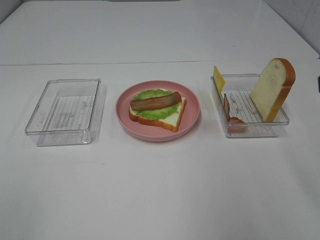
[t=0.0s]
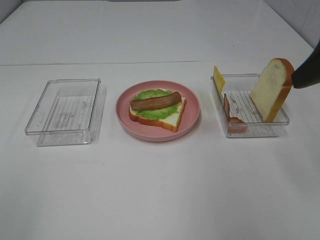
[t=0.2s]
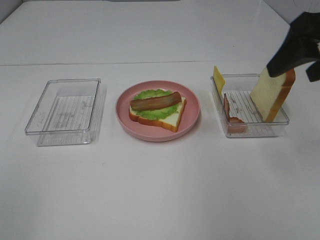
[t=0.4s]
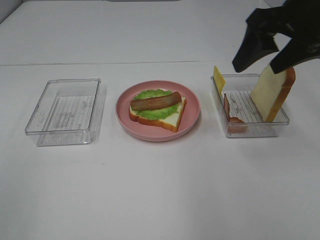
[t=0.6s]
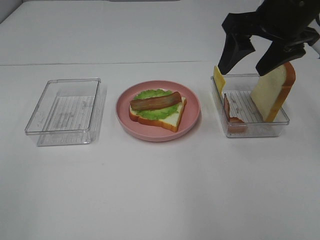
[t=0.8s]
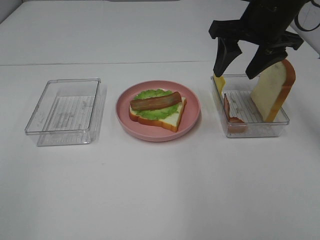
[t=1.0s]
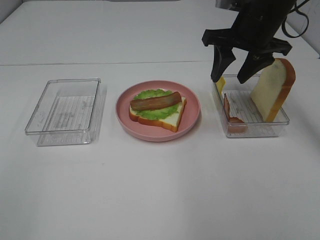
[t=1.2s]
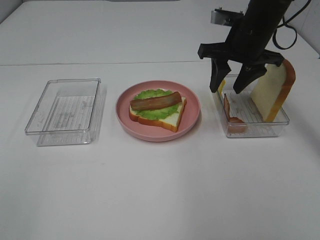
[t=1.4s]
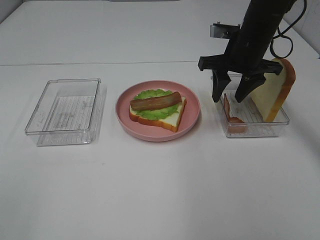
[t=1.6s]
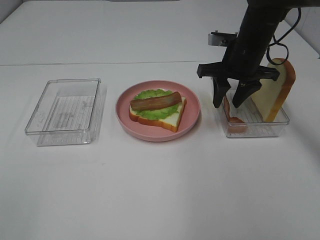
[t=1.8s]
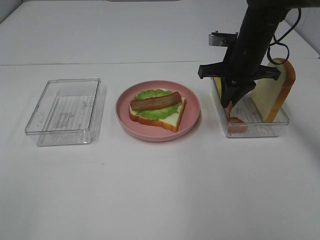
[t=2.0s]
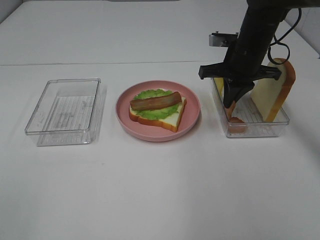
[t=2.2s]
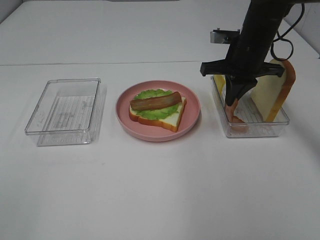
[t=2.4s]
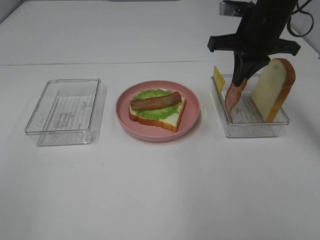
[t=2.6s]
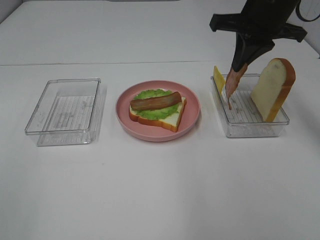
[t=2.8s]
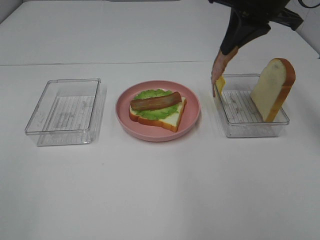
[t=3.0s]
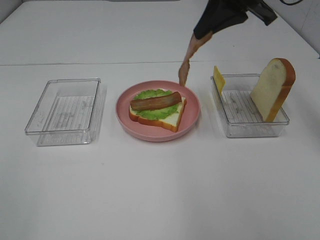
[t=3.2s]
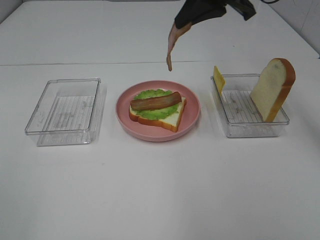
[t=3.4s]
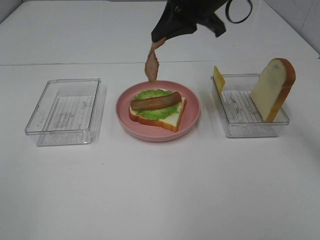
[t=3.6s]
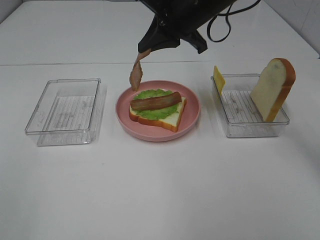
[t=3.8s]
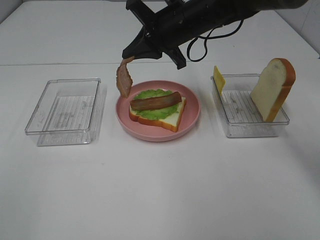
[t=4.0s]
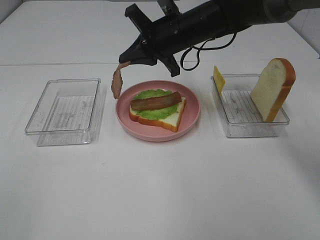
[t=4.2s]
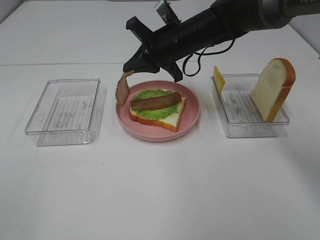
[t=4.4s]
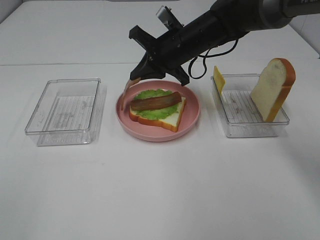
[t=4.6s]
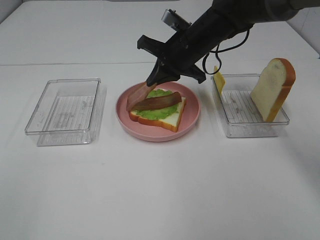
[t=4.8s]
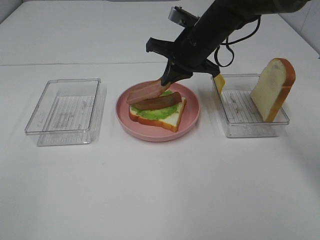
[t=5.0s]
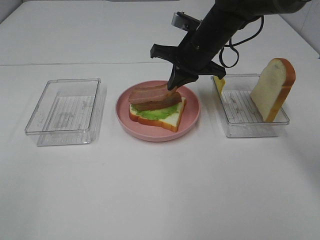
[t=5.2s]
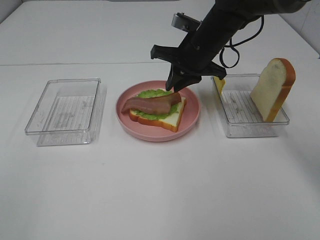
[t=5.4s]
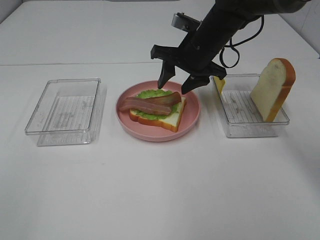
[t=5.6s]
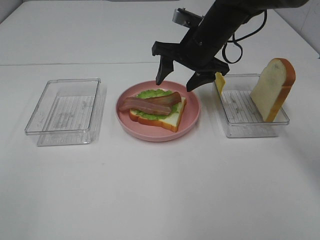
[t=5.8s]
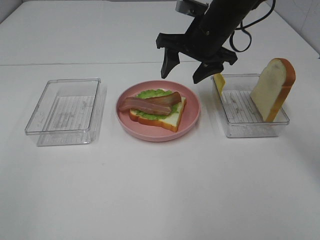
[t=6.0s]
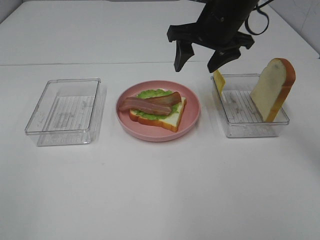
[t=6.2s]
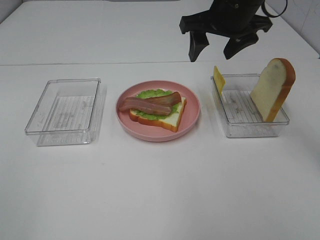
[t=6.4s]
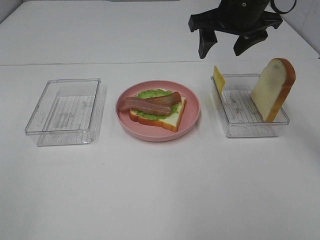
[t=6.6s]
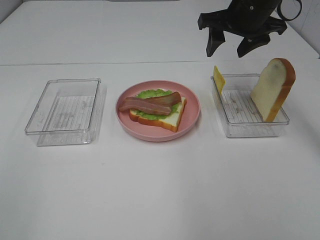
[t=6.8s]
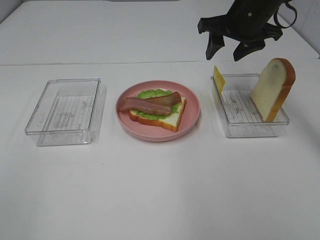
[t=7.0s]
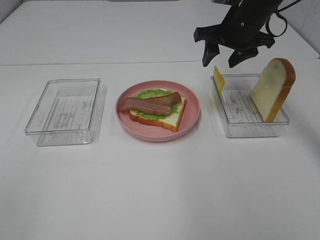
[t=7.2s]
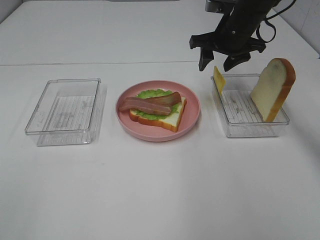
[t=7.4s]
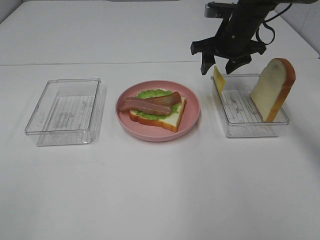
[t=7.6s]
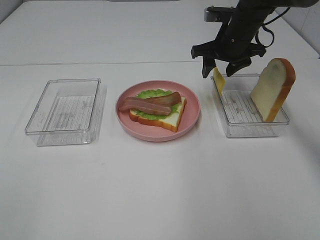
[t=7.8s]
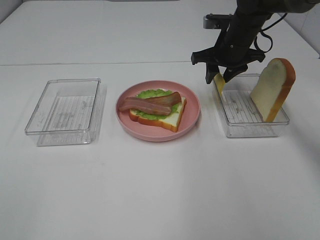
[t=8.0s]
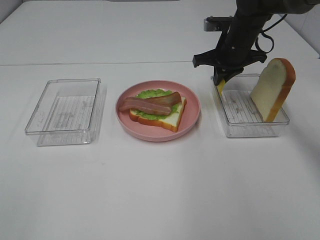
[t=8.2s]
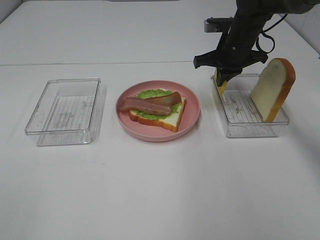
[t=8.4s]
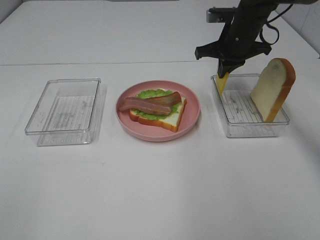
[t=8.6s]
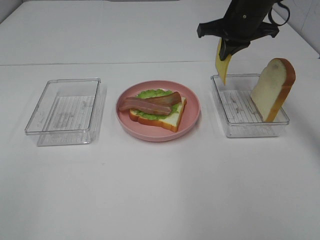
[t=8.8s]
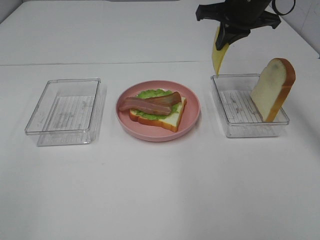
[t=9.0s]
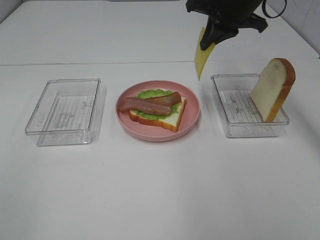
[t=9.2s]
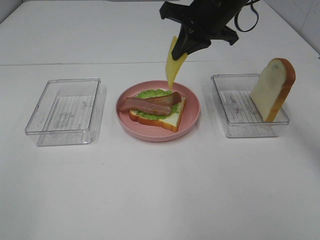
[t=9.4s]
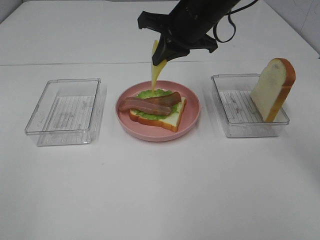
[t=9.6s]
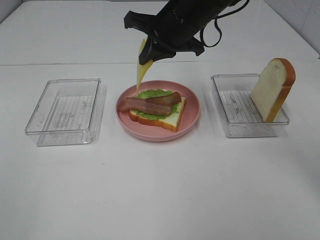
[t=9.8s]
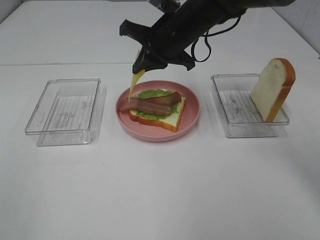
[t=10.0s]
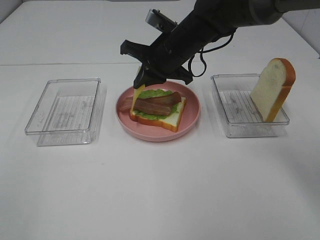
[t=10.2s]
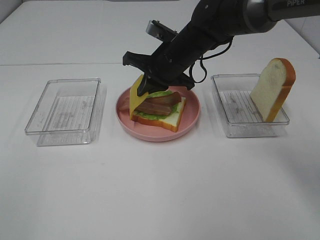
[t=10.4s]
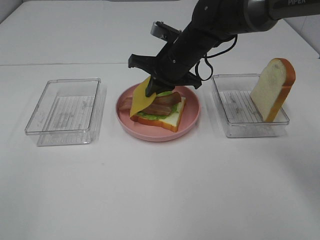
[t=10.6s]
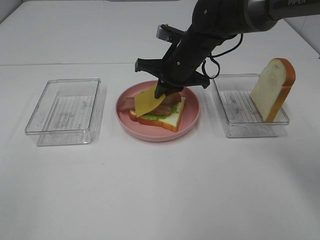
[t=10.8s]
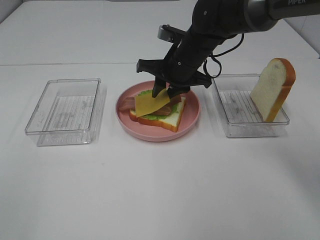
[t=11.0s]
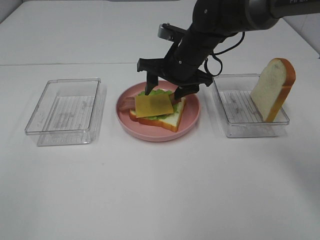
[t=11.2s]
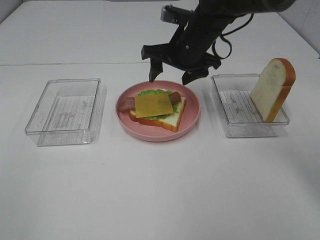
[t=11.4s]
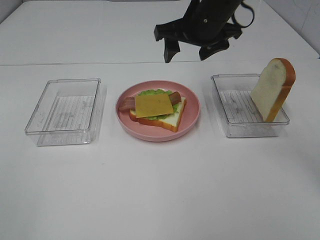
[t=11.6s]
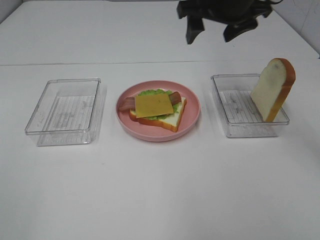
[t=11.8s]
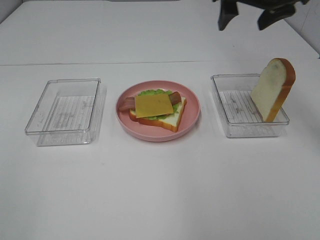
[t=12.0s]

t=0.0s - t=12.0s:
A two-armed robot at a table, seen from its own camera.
Task of the whole recording: Make sandwiches.
Step, t=0.0s - t=2.2s: Right hand:grab the bacon.
Step, t=2.4s - t=6.0s: Right hand:place bacon on bacon.
Step, t=6.2s - t=8.2s: Right hand:grab the cheese slice.
Step, t=8.4s - t=11.2s: Right hand:place the cheese slice on top of the bacon.
t=0.0s - t=1.6s: The right gripper travels forward, downward and to the left by approximately 30 cm.
t=1.6s - t=3.0s: The right gripper travels upward by about 15 cm, and closes up.
t=3.0s - t=4.4s: The right gripper heads downward, to the left and forward, covering roughly 20 cm.
t=4.4s - t=6.0s: The right gripper ends up about 5 cm from where it was, and opens up.
t=6.0s - t=7.6s: The right gripper moves to the right and forward, about 10 cm.
t=7.6s - t=9.0s: The right gripper moves upward, approximately 10 cm, and closes up.
t=9.0s - t=10.4s: The right gripper goes approximately 15 cm to the left and downward.
t=10.4s - t=12.0s: The right gripper shifts approximately 20 cm upward and to the right, and opens.

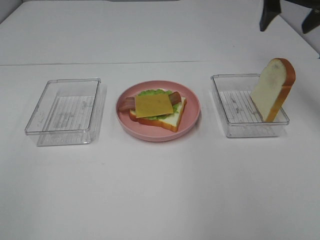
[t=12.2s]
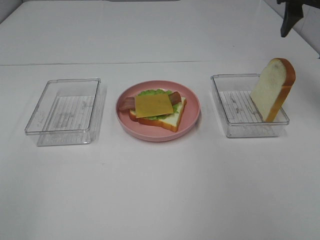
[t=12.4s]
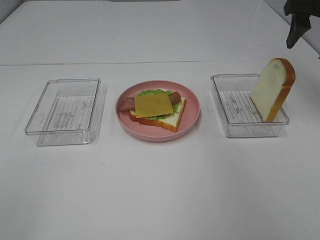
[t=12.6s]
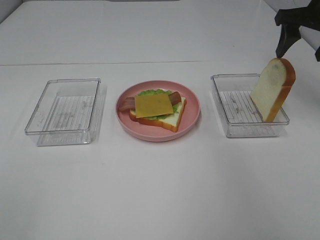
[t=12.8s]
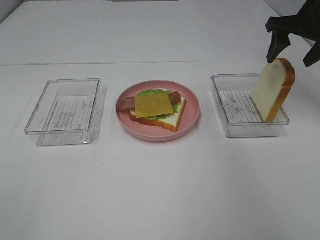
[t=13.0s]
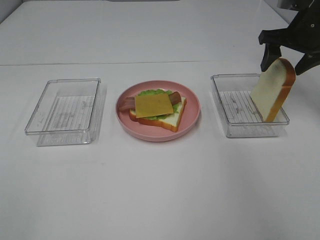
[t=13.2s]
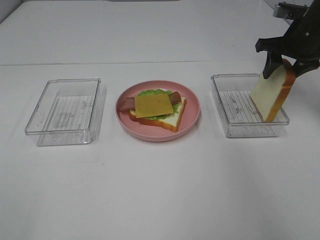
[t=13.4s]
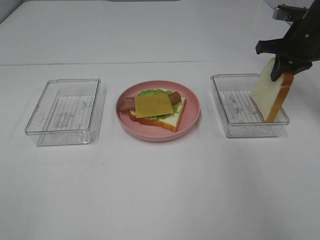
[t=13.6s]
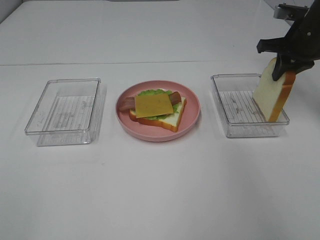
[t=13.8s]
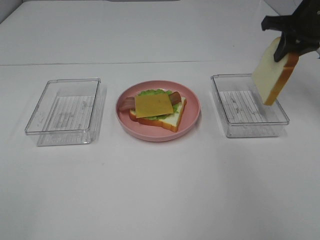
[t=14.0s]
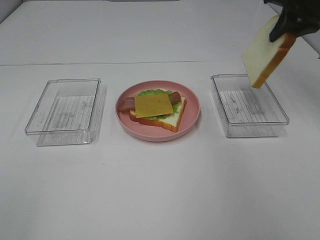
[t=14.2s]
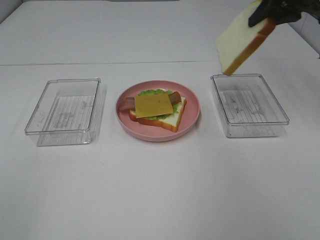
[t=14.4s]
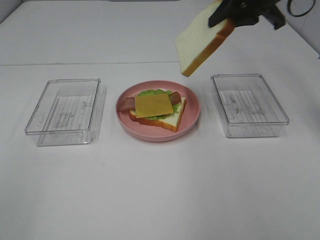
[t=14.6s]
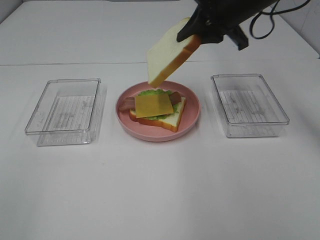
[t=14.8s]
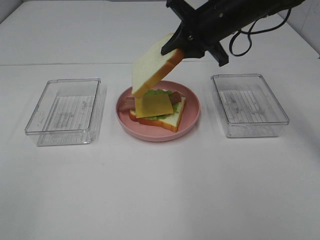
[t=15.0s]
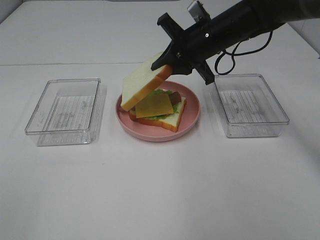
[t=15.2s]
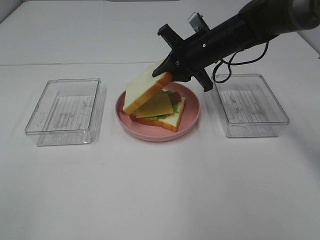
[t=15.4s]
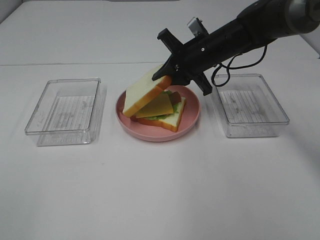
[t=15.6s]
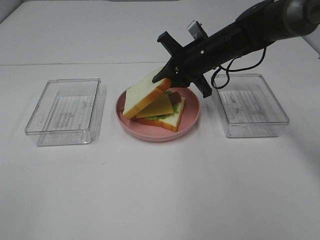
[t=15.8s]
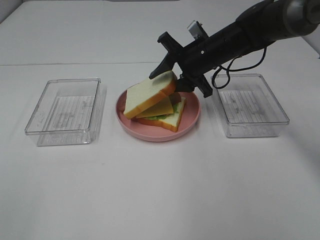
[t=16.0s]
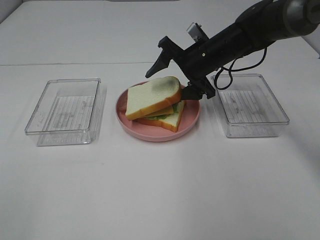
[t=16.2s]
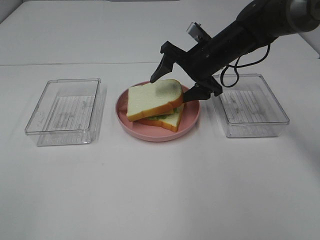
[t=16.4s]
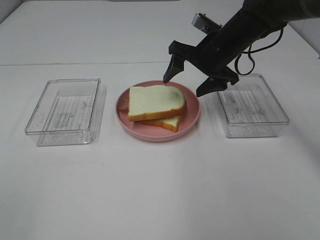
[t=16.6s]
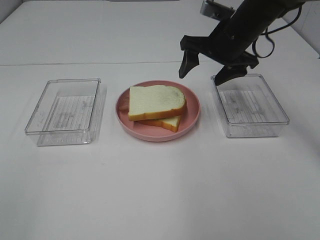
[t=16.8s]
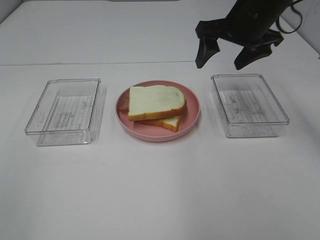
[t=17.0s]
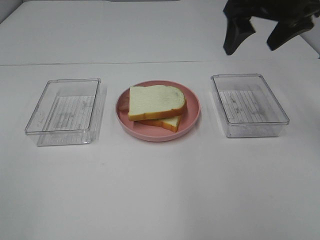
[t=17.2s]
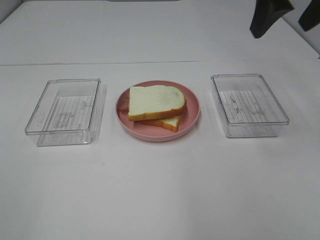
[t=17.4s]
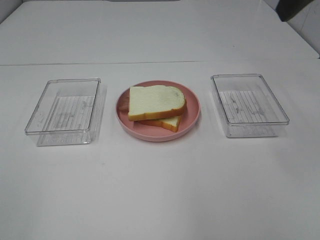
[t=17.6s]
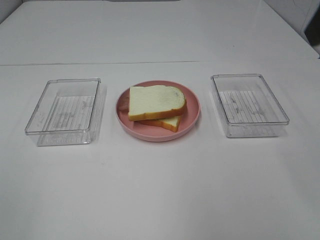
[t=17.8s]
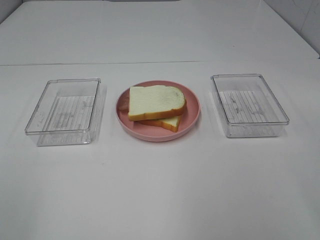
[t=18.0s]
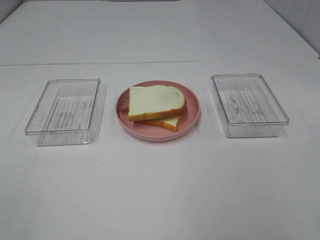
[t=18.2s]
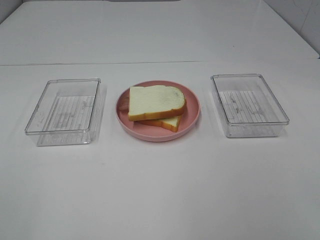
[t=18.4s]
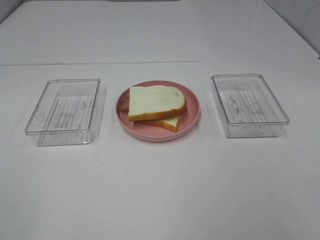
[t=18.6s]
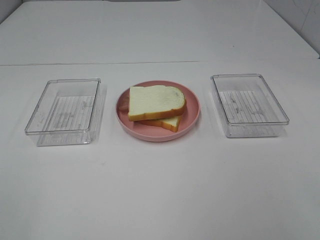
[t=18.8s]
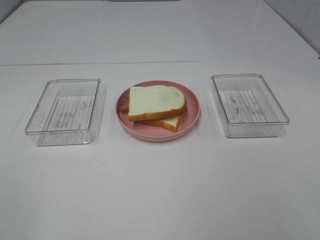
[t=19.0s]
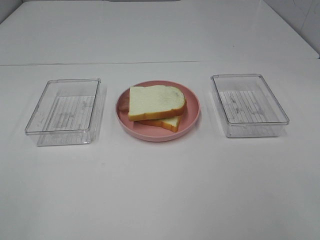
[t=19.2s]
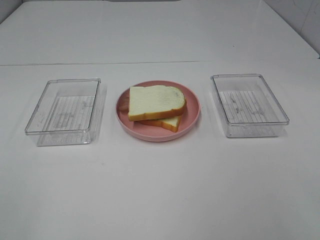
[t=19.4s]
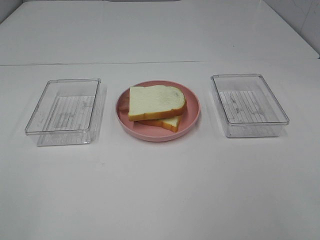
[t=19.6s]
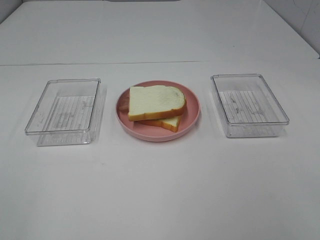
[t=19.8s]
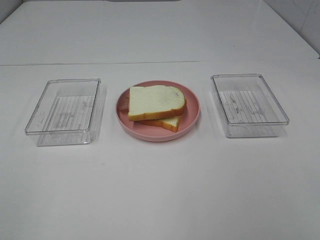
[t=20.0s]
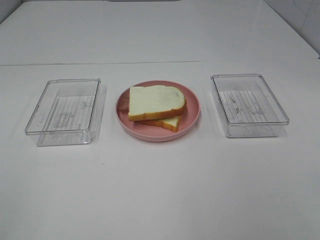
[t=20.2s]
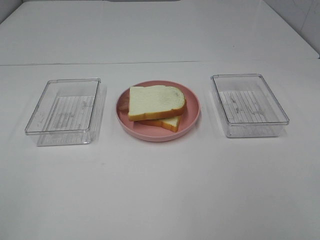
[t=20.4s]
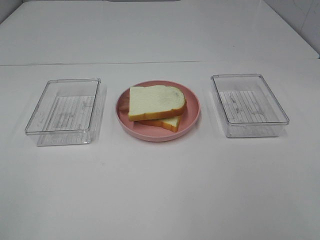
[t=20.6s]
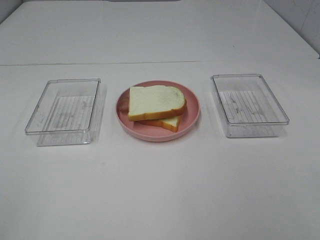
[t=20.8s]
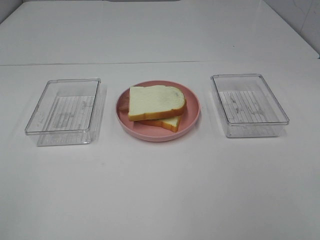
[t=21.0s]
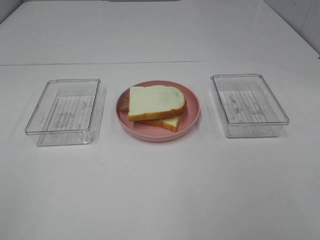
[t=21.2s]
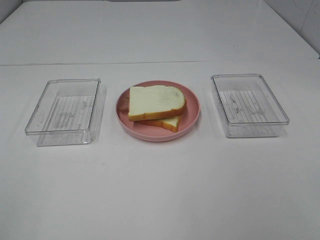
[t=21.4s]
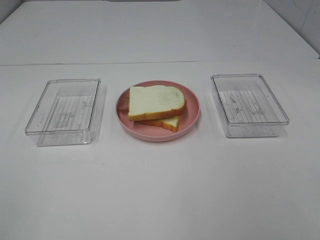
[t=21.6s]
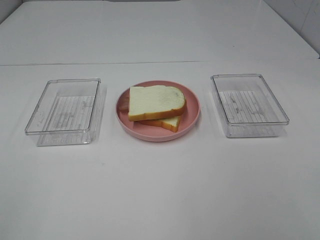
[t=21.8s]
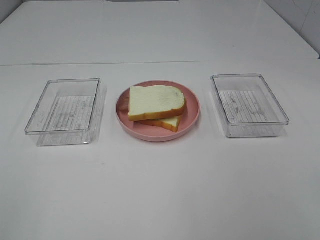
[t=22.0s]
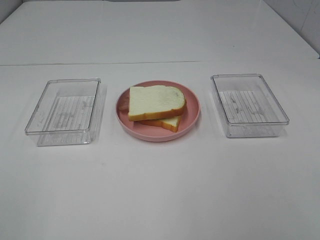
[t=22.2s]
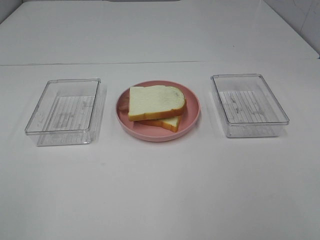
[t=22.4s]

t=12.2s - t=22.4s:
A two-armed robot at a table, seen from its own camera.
Task of the whole recording: Make sandwiches.
Step, t=12.2s - t=13.8s: Right hand:grab the bread slice.
Step, t=14.0s - t=16.8s: Right hand:place the bread slice on the cheese slice.
t=12.2s - t=13.6s: The right gripper shifts approximately 10 cm downward, and closes up.
t=13.6s - t=15.2s: The right gripper goes some 20 cm to the left.
t=15.2s - t=16.6s: The right gripper opens up.
t=16.6s - t=18.0s: The right gripper travels backward and upward by approximately 35 cm.
t=21.0s - t=22.4s: The two grippers keep their place.
